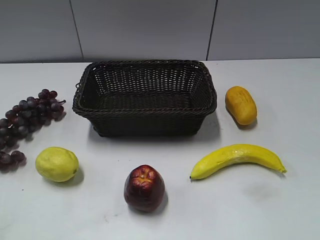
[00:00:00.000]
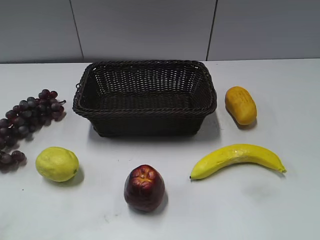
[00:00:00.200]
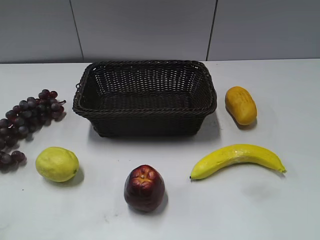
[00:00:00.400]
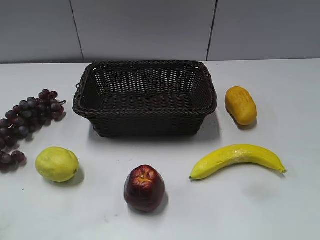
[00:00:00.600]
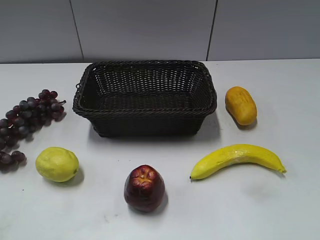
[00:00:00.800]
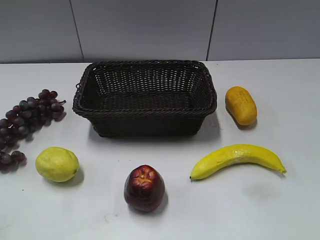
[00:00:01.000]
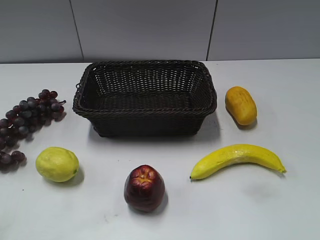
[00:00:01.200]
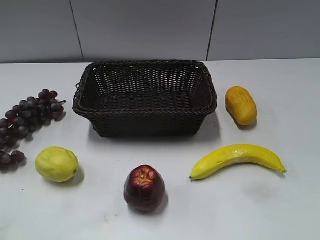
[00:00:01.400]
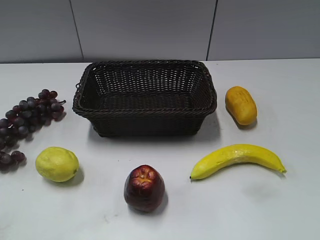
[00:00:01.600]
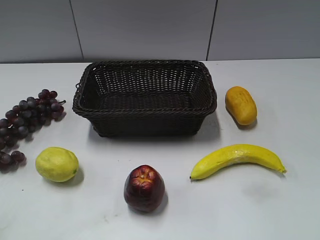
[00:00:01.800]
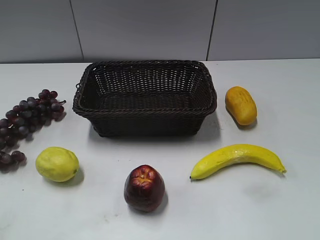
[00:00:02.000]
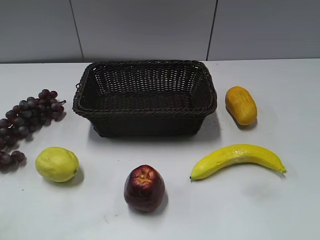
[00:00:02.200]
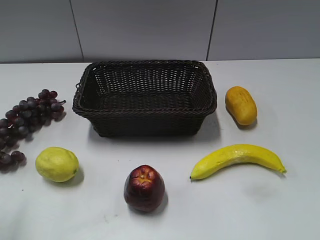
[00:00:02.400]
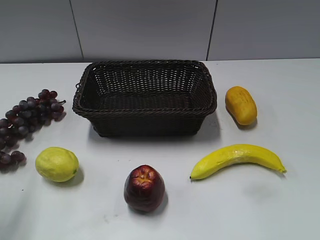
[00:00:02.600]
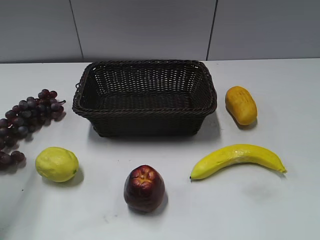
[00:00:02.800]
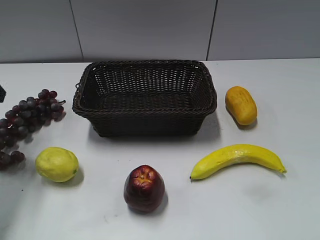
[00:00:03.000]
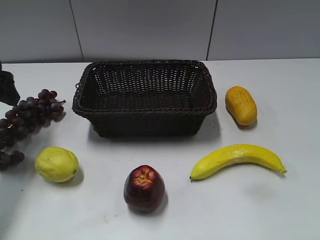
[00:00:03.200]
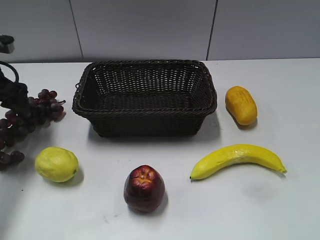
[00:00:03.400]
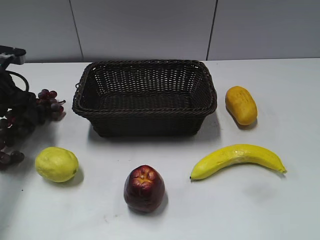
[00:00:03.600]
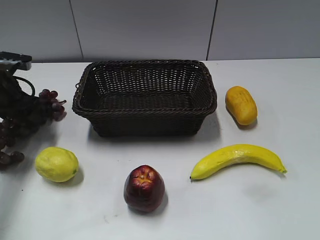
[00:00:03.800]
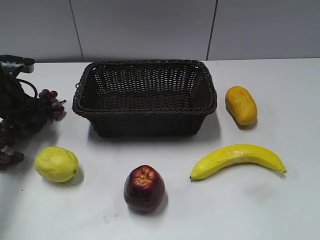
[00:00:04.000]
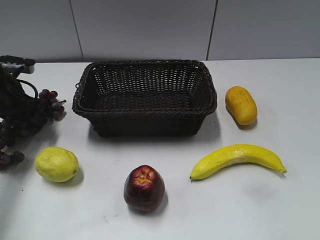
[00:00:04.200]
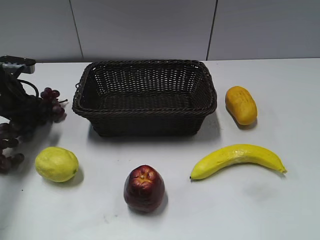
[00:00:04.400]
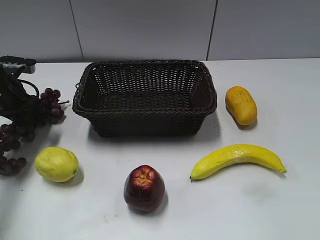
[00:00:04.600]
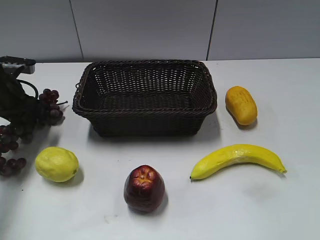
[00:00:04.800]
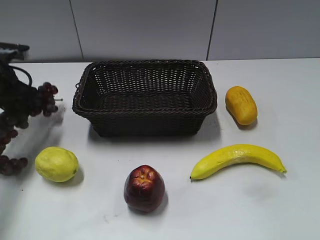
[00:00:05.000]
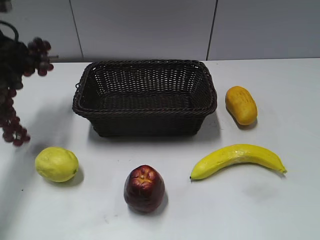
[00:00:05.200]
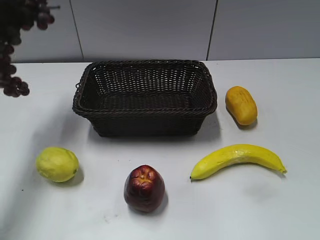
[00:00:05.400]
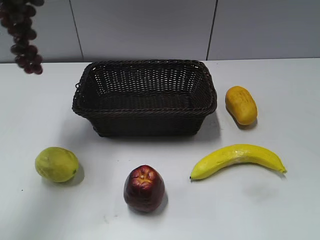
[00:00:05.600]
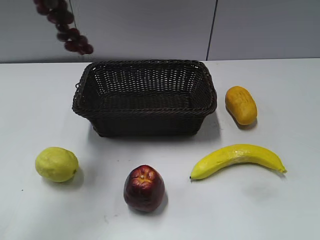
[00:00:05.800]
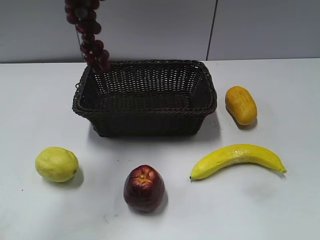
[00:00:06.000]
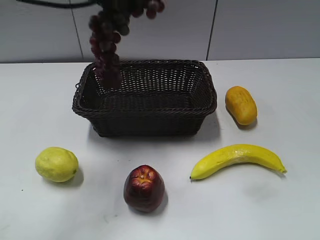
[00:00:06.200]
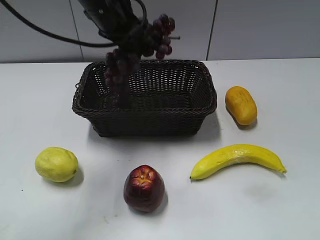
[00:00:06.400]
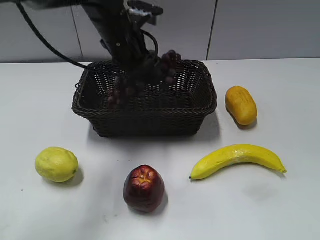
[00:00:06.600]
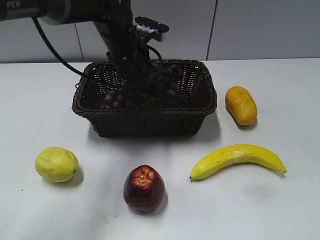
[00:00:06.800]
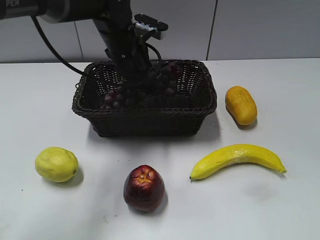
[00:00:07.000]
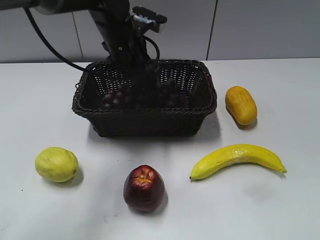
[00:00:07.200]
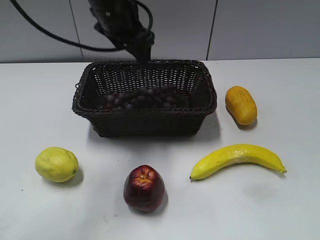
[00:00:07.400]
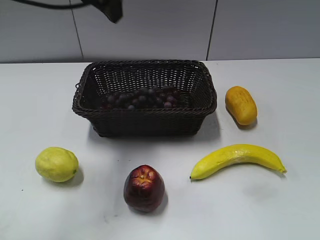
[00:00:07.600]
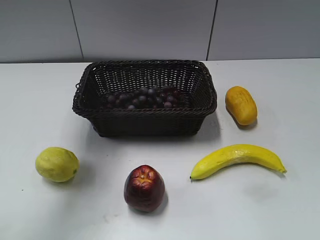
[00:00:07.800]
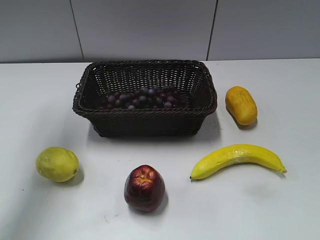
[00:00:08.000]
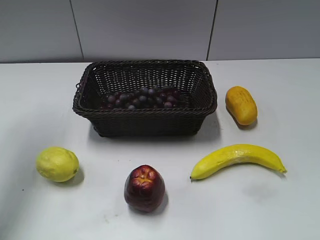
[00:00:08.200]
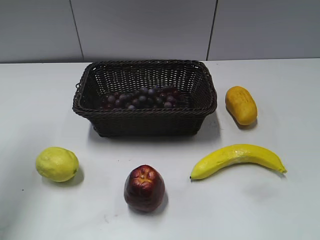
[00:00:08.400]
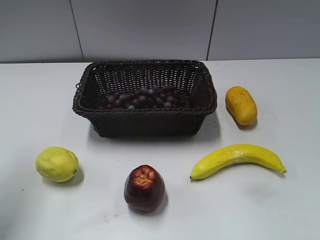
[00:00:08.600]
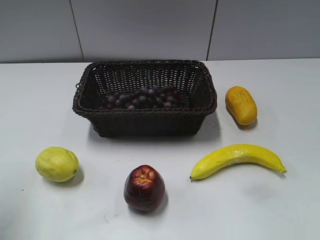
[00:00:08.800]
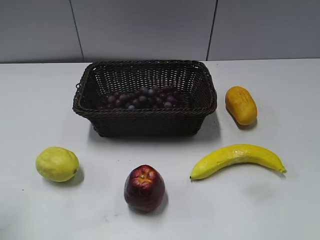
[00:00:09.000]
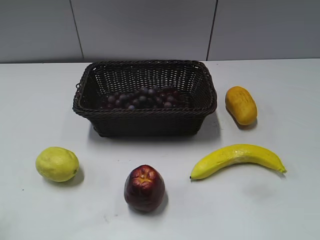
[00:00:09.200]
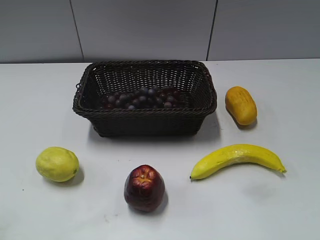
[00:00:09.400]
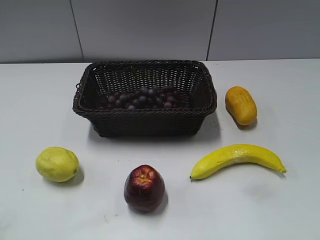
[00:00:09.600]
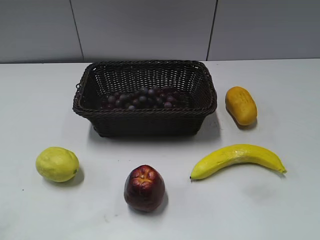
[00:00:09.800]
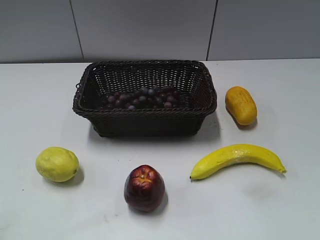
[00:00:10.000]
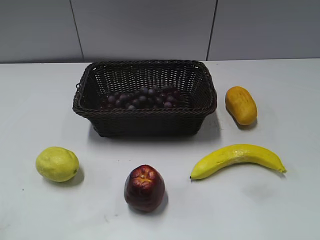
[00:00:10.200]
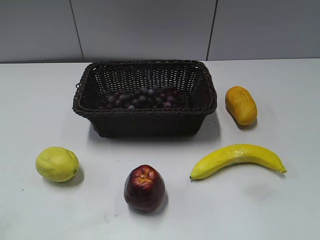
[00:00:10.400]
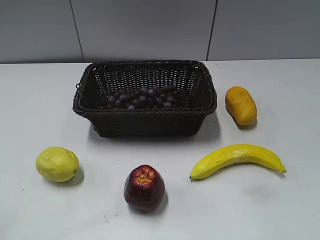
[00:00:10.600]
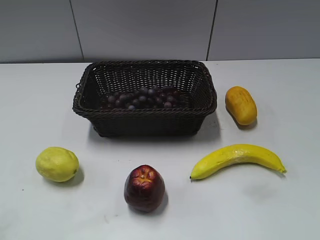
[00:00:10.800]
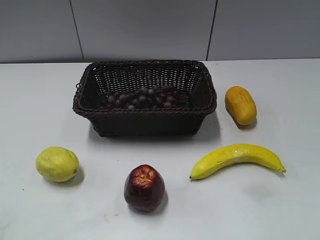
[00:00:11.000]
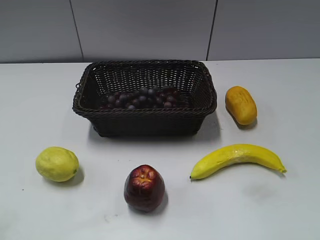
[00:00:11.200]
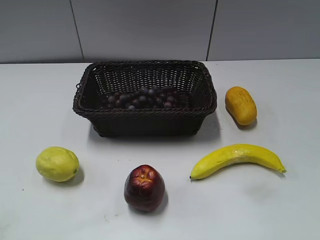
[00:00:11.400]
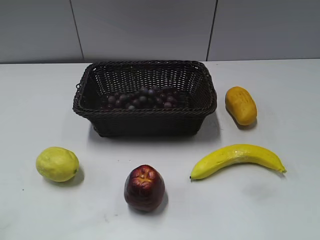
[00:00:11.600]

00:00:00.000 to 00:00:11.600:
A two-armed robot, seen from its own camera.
Step, 00:00:03.000 to 00:00:04.200: Grasp the grape with left gripper.
Step, 00:00:04.600 to 00:00:07.200: Place the grape in the basket with left gripper.
00:00:01.400 to 00:00:02.800: The left gripper shifts about 25 cm forward, and opens up.
00:00:02.800 to 00:00:04.400: The left gripper heads forward and downward, covering approximately 20 cm, and closes its fingers.
00:00:04.400 to 00:00:05.800: The left gripper shifts some 30 cm upward and to the right.
00:00:05.800 to 00:00:07.200: The left gripper heads downward and to the right, covering approximately 25 cm, and opens up.
00:00:07.200 to 00:00:08.800: The left gripper goes some 35 cm to the left, backward and upward.

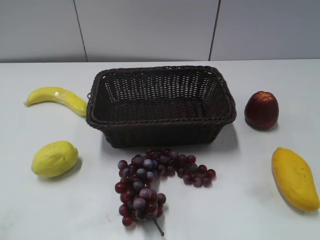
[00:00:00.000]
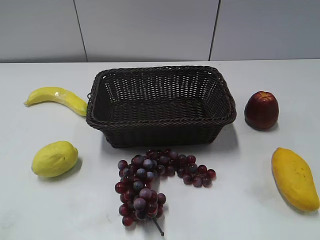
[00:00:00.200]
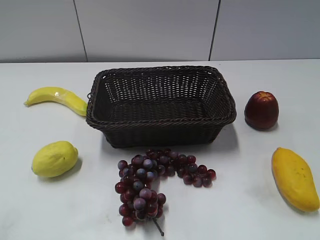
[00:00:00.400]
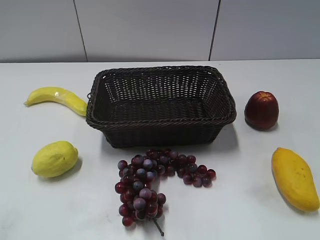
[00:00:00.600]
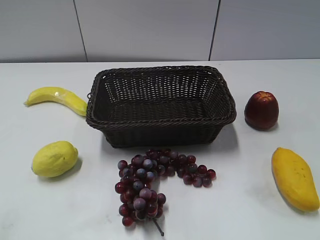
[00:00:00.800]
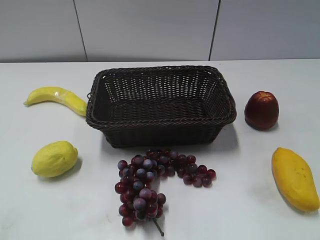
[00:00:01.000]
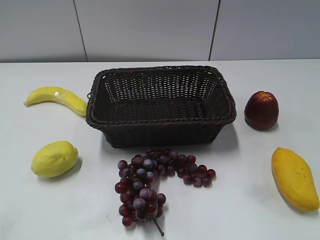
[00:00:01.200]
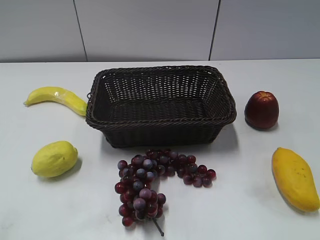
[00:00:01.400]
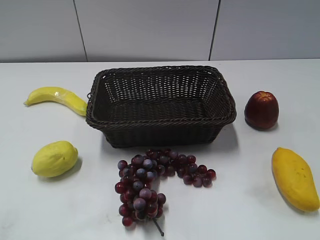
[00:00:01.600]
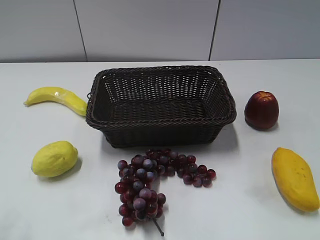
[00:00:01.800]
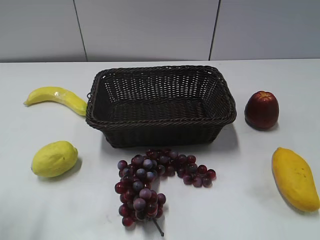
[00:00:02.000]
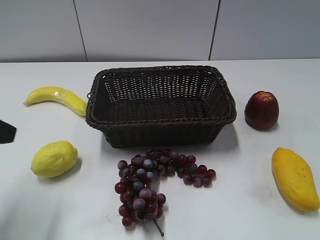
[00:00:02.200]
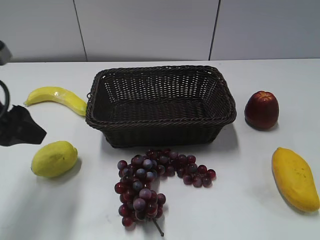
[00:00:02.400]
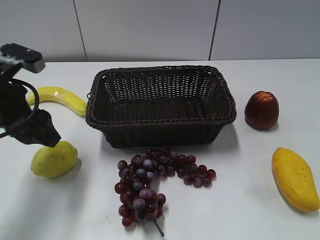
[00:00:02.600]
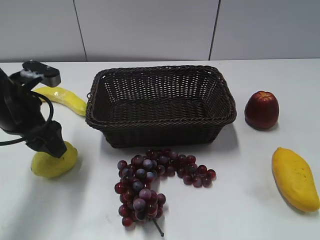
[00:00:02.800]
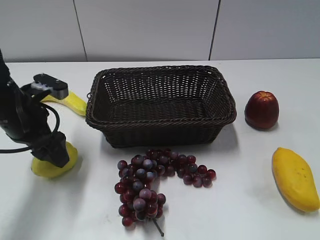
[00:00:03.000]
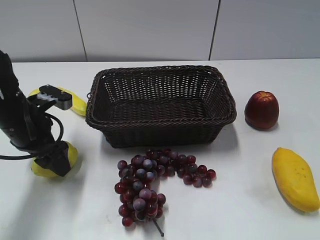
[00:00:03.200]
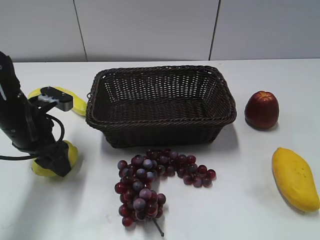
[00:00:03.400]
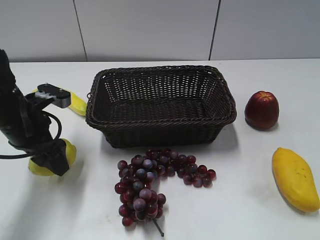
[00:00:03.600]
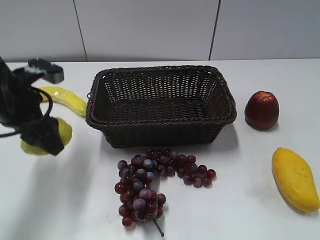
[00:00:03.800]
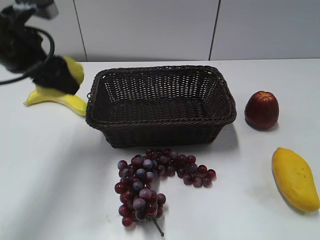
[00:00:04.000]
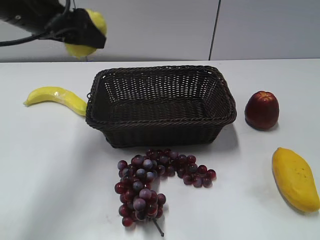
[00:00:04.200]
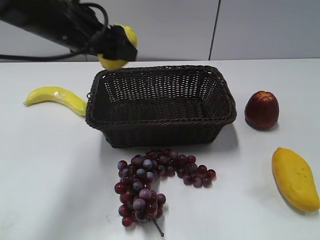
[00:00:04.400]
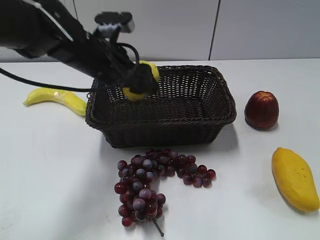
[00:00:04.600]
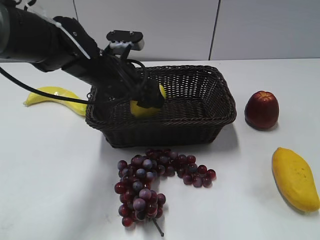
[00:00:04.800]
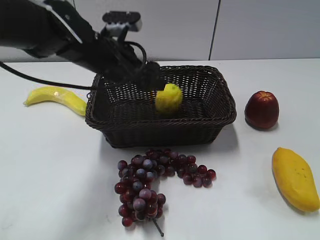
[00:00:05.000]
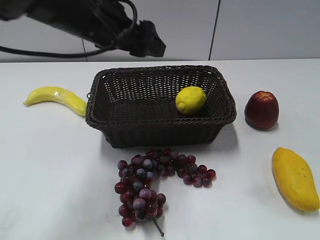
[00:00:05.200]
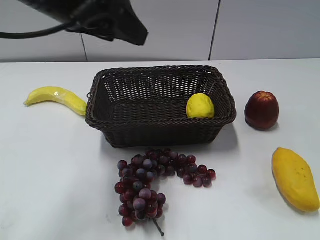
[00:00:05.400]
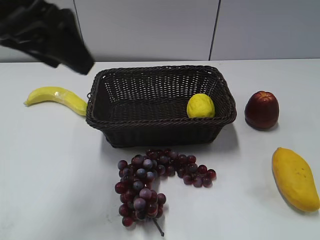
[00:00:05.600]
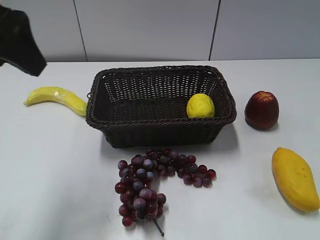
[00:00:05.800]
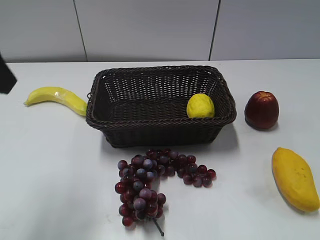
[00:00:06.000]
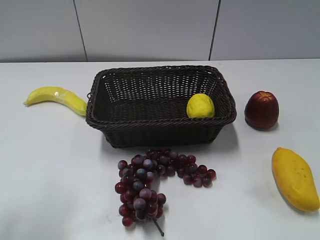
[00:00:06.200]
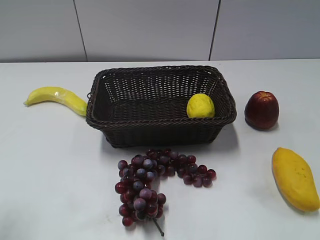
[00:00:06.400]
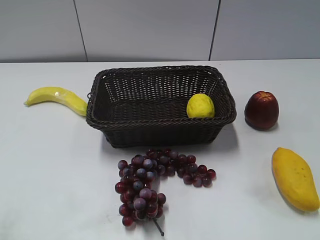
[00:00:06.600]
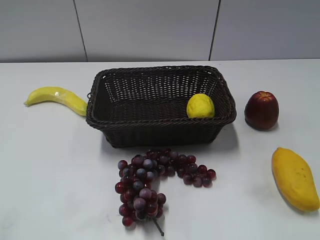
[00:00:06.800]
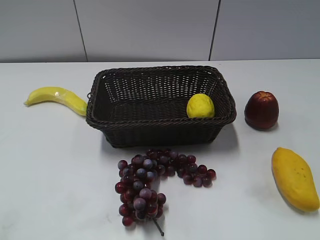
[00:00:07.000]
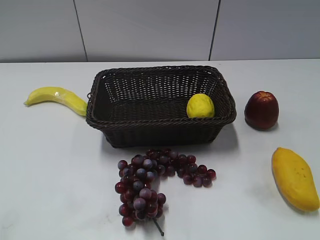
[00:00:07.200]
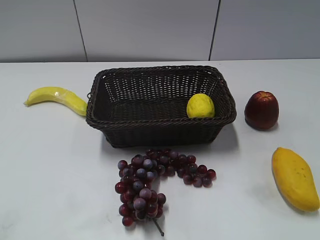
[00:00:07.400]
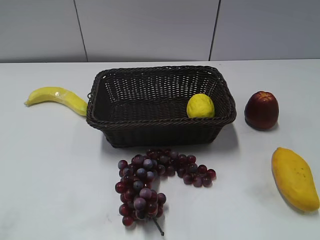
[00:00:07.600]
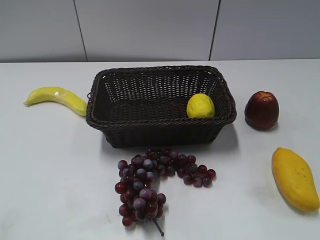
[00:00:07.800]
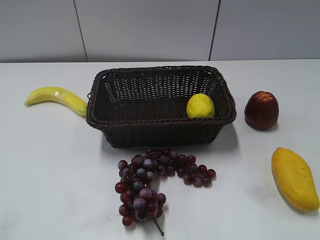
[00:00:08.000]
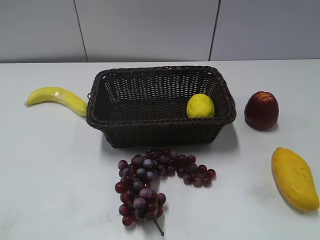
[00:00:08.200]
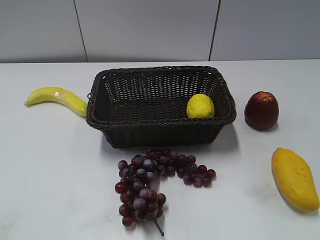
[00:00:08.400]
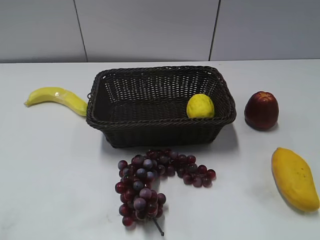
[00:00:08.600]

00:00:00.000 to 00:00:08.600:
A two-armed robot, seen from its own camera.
Step, 00:00:02.200 to 00:00:03.600: Grasp the lemon with left gripper.
Step, 00:00:03.800 to 00:00:05.000: Place the lemon in the basket with left gripper.
00:00:01.400 to 00:00:02.800: The left gripper travels forward by some 30 cm.
00:00:02.800 to 00:00:04.400: The left gripper moves up and down over about 15 cm, changing direction 2 times.
00:00:04.400 to 00:00:05.800: The left gripper travels backward, upward and to the left by roughly 20 cm.
00:00:05.800 to 00:00:07.200: The left gripper heads backward, to the left and downward, covering approximately 25 cm.
